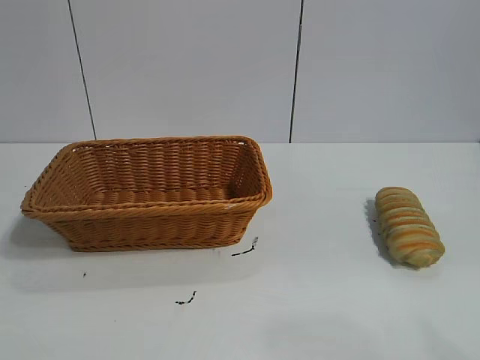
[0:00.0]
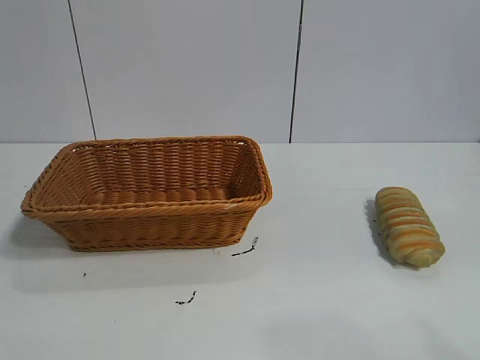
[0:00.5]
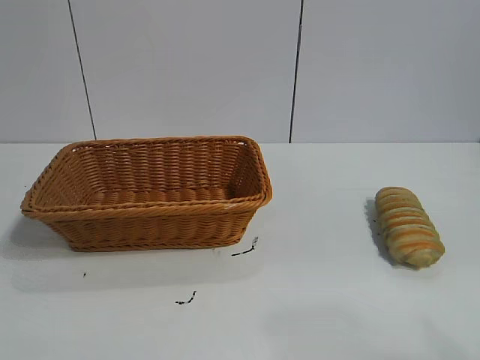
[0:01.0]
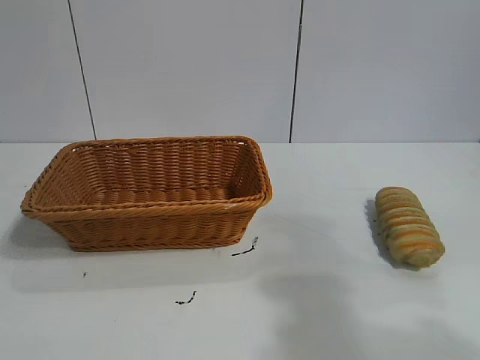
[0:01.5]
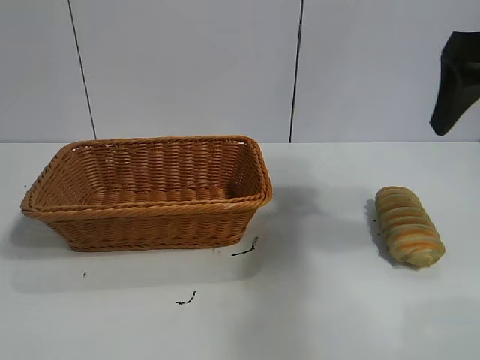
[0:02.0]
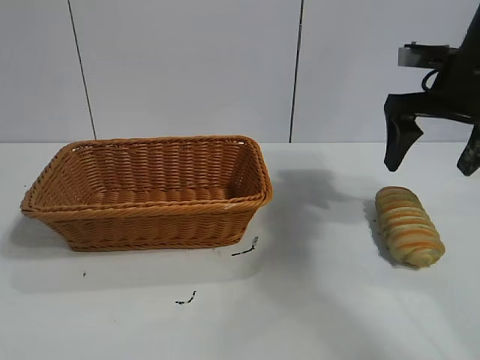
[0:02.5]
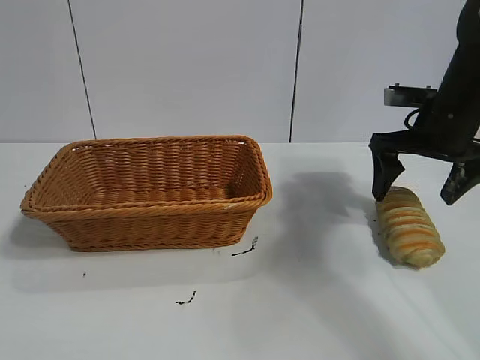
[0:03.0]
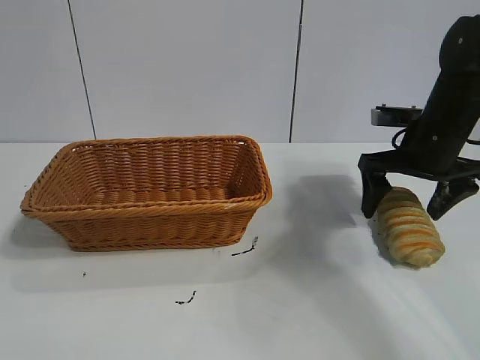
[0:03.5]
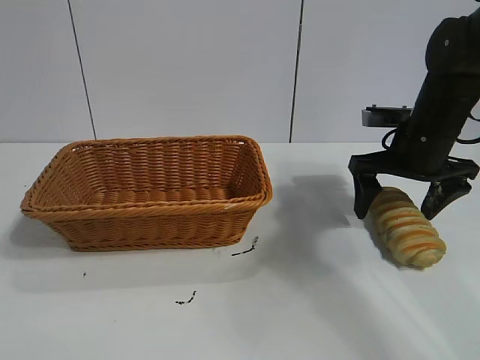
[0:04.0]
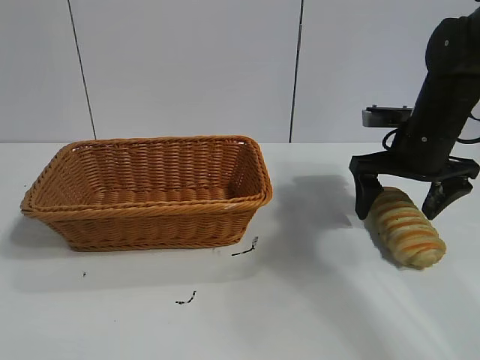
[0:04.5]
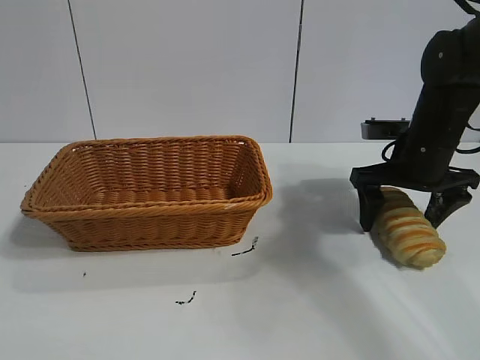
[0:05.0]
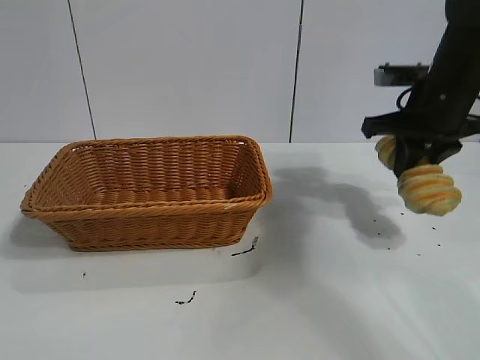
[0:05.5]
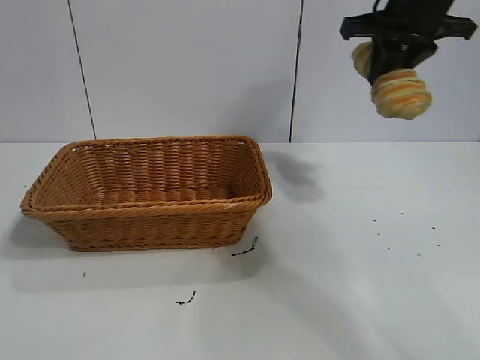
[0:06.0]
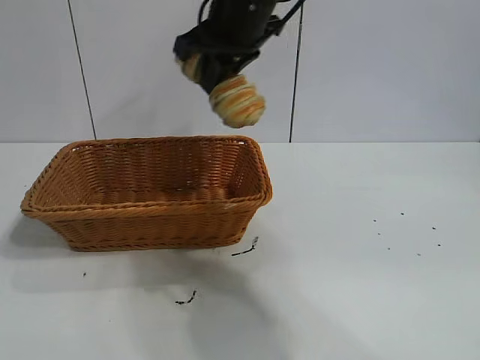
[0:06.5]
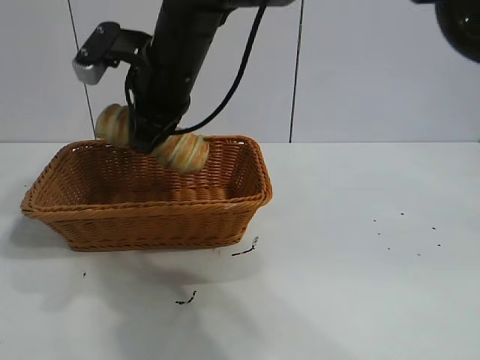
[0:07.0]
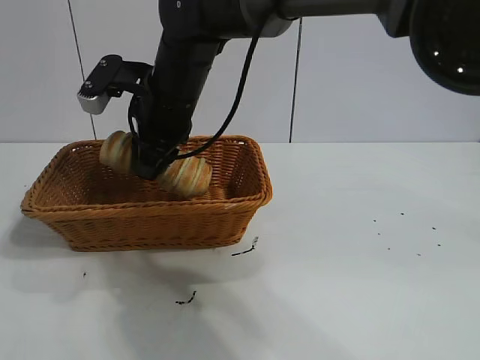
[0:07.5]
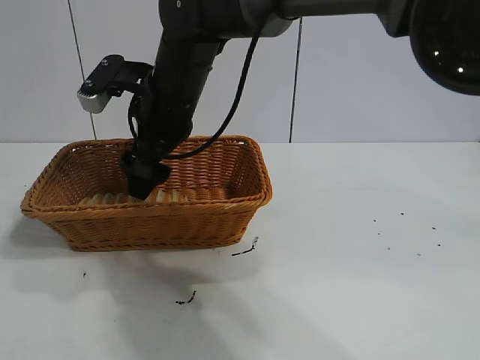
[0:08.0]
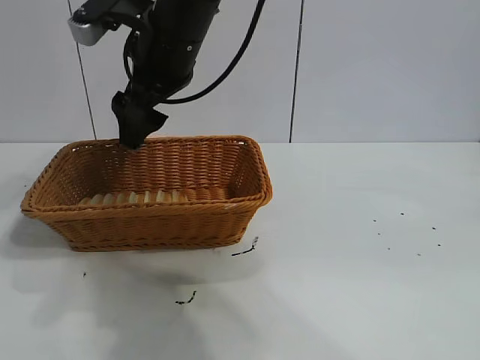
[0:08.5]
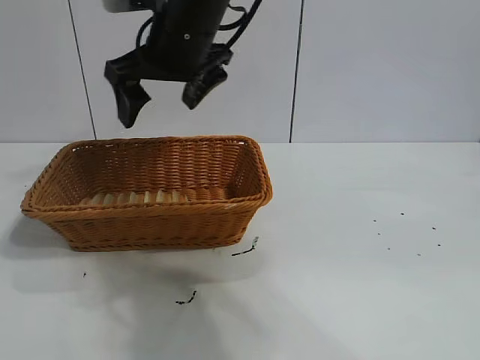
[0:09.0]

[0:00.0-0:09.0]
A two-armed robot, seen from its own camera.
Task of the whole recording: pick up the long bread and put it into the basket.
Step, 0:02.0 to 0:05.0: Grasp the long bread with right gripper.
Step, 0:05.5 to 0:08.0: Place the long bread in the basket with right gripper.
